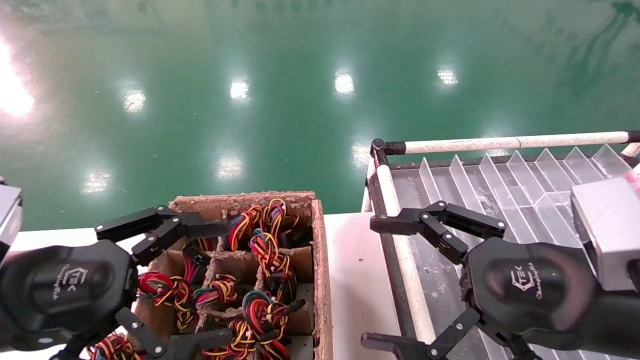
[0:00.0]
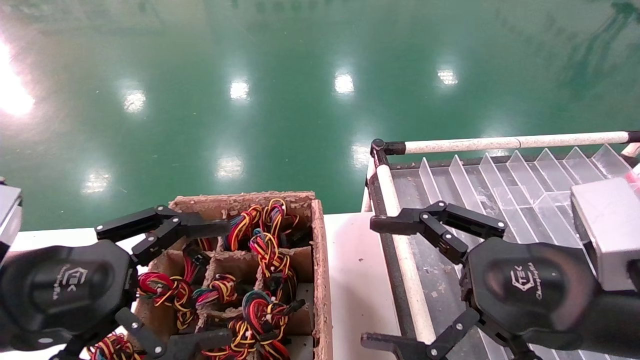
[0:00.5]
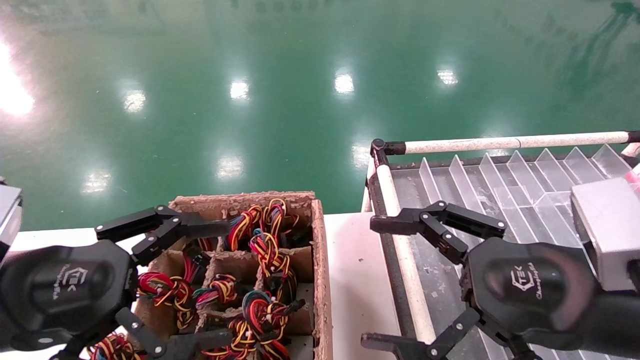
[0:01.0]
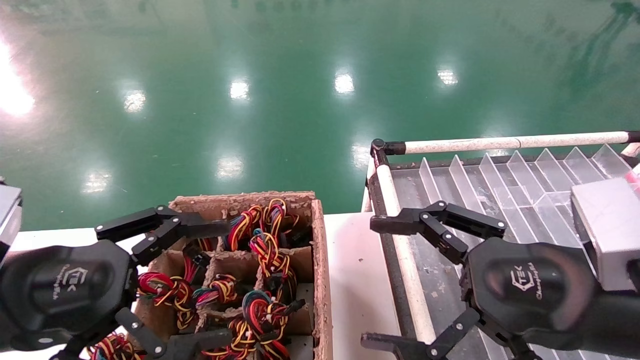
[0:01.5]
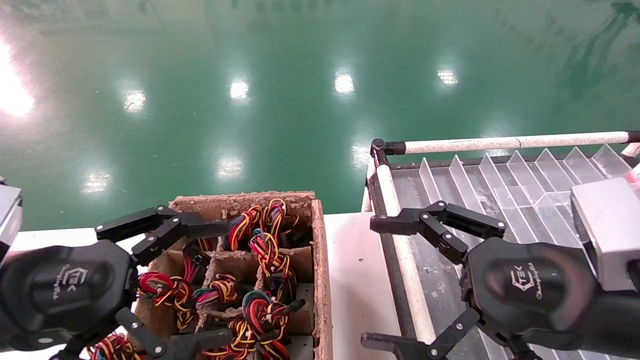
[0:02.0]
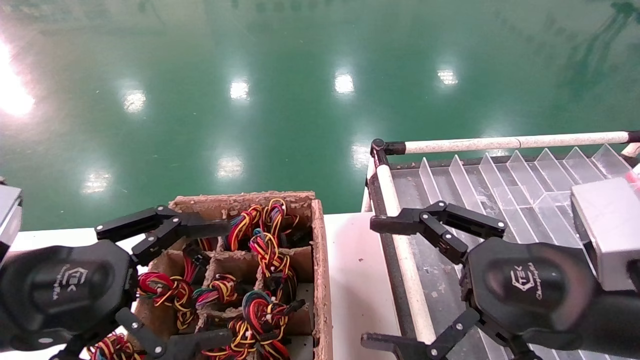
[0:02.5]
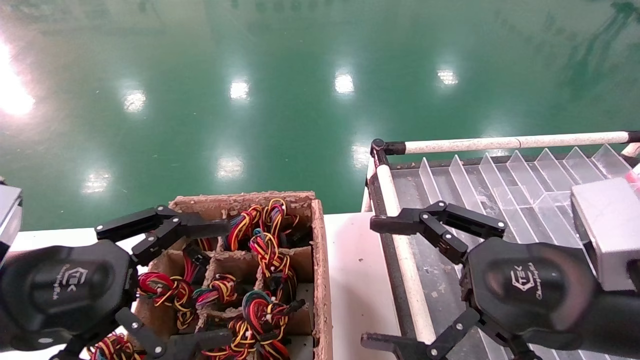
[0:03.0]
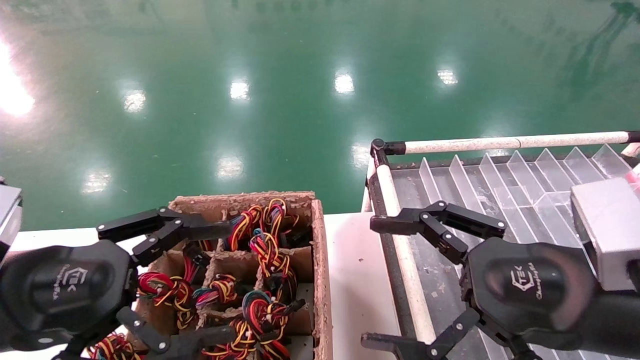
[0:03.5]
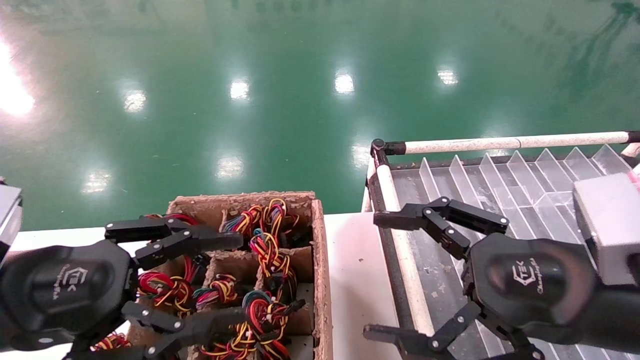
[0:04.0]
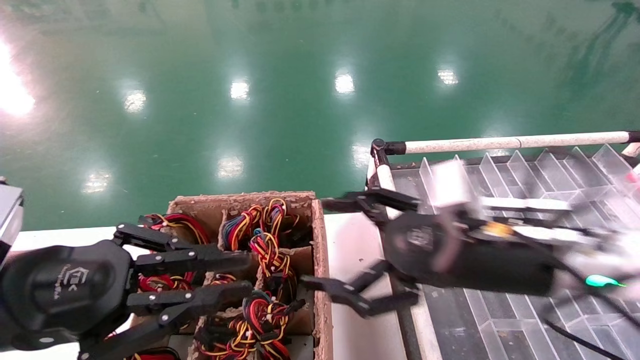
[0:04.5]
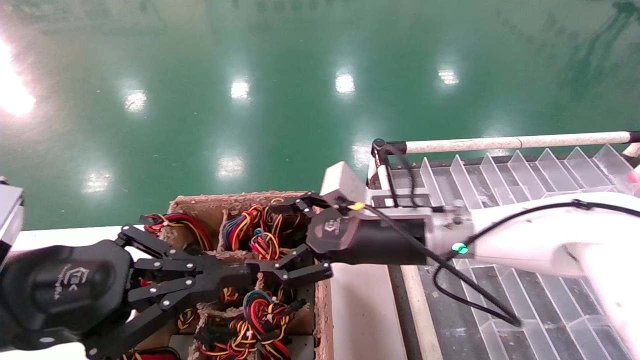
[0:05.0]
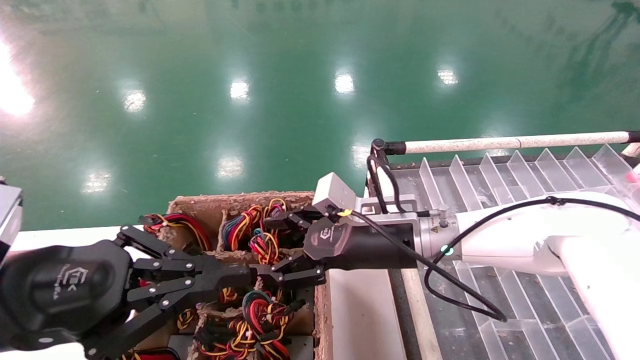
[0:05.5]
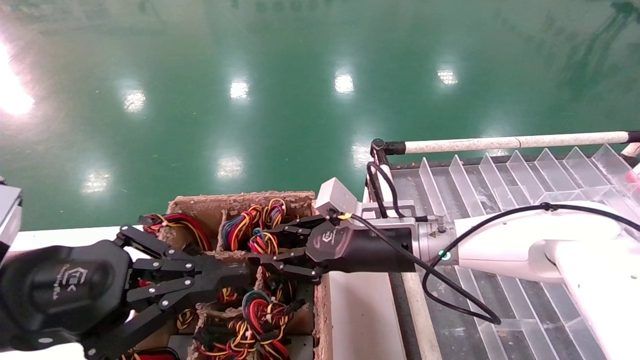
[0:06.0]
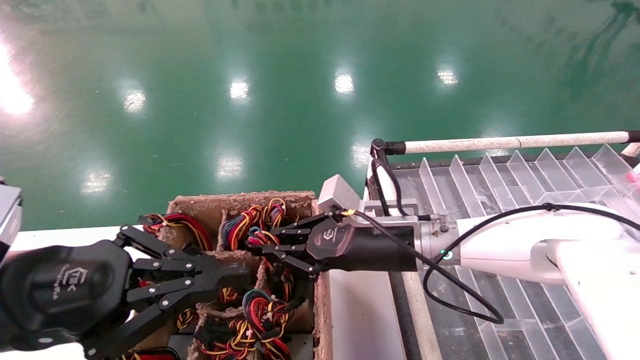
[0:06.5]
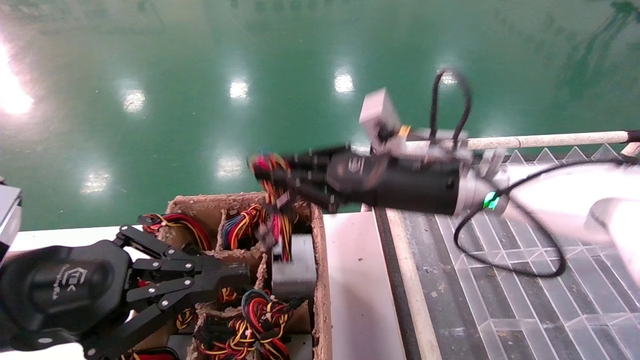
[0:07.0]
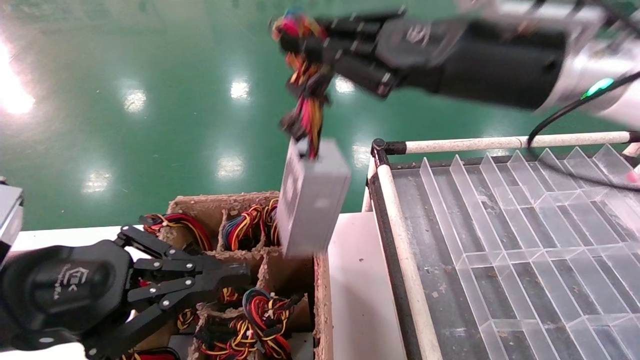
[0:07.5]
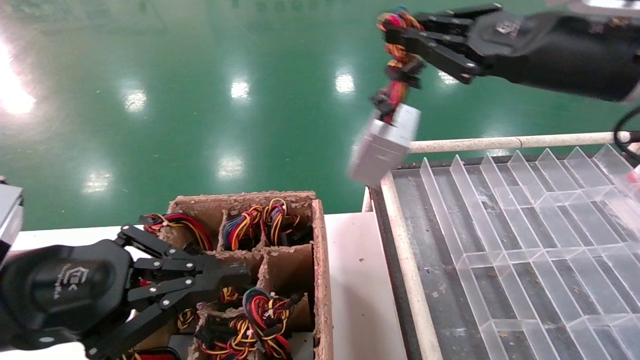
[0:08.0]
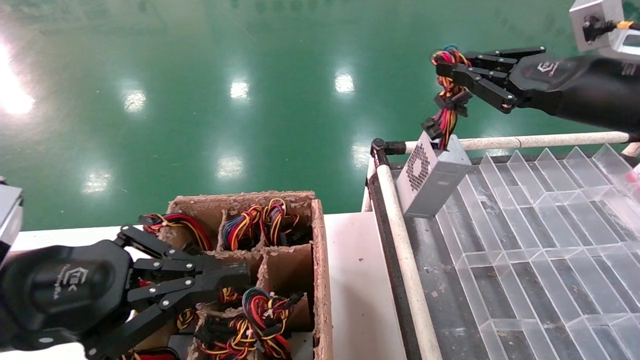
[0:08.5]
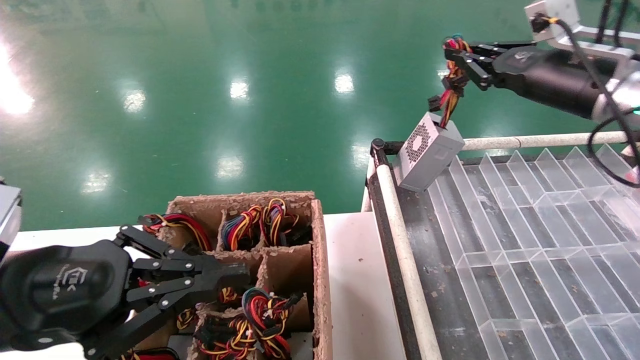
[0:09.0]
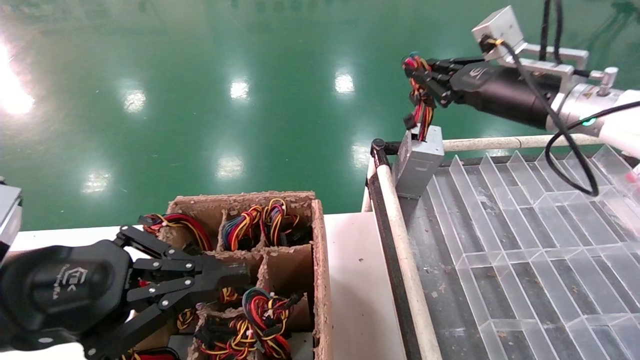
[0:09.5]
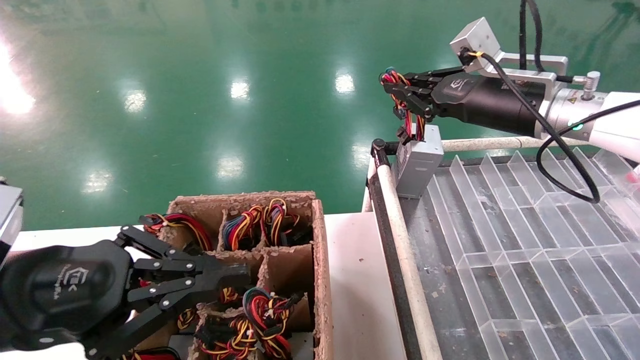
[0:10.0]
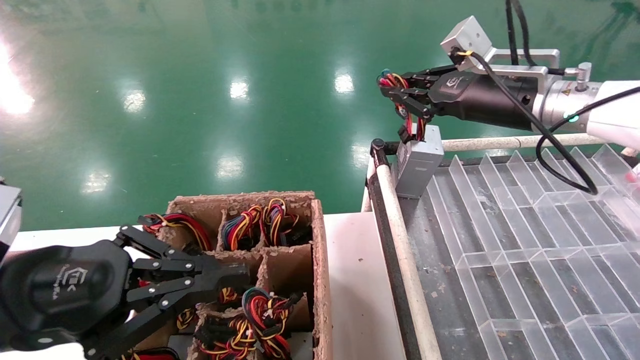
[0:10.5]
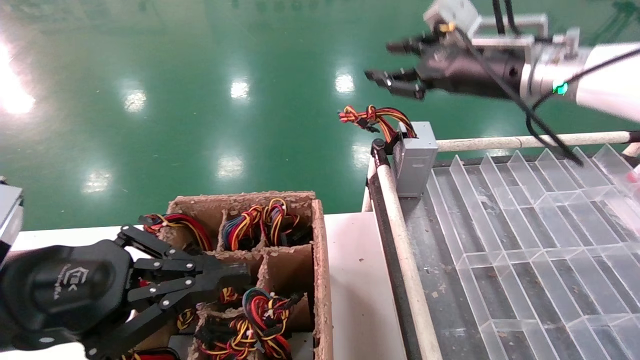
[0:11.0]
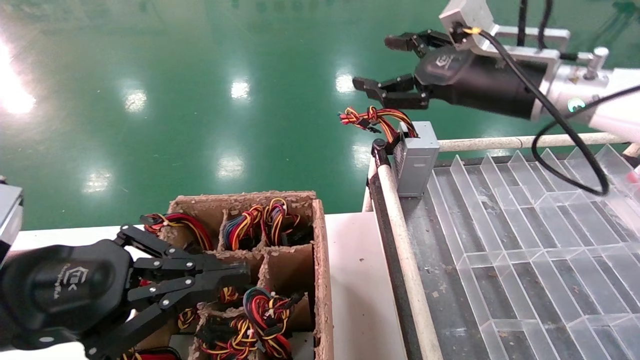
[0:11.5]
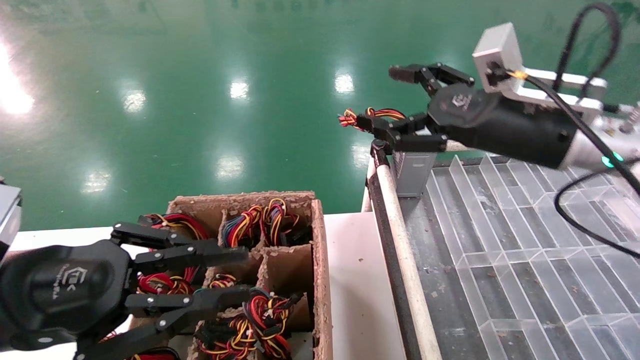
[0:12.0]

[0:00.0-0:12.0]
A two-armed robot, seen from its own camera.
Step, 0:04.5 to 0:06.5: Grab the main unit power supply from the containment box.
Step, 0:07.0 to 0:10.5: Place the main unit power supply in the designated area.
0:00.0 to 0:04.0: Neither gripper changes place.
0:04.0 to 0:06.0: The left gripper closes. The right gripper is displaced forward and to the left by about 25 cm, and closes up.
0:06.0 to 0:08.0: The right gripper is displaced upward and to the right by about 30 cm, and closes.
0:08.0 to 0:10.0: The right gripper goes some 10 cm forward.
0:10.0 to 0:12.0: The right gripper travels backward by about 5 cm, and opens.

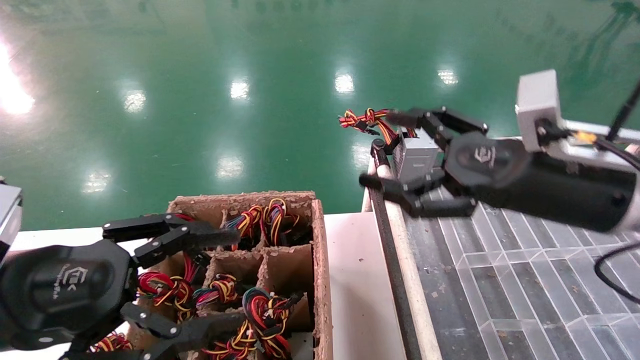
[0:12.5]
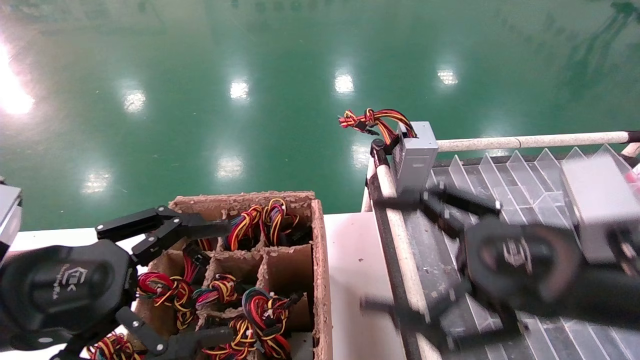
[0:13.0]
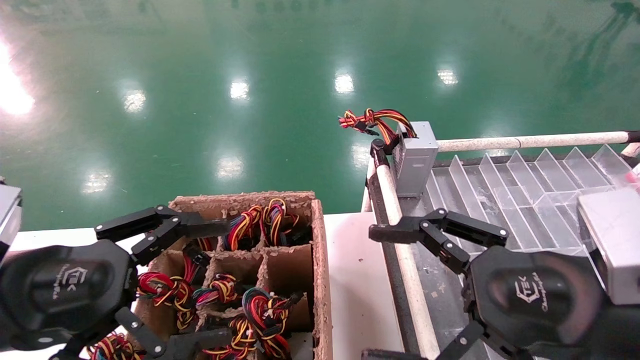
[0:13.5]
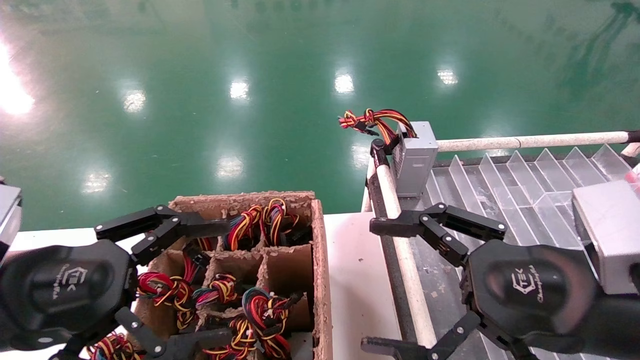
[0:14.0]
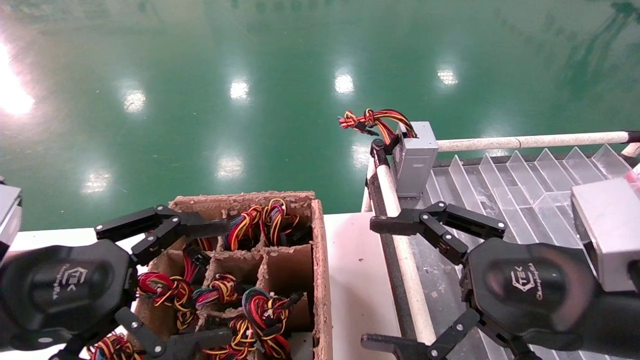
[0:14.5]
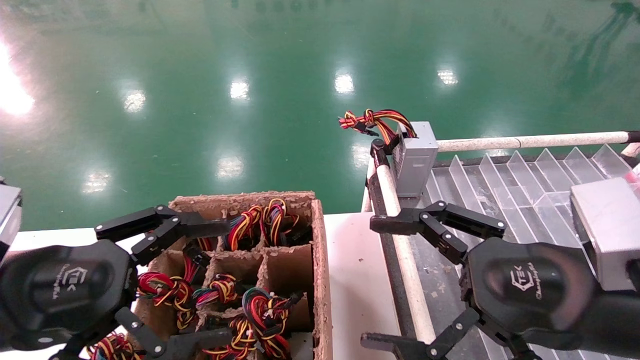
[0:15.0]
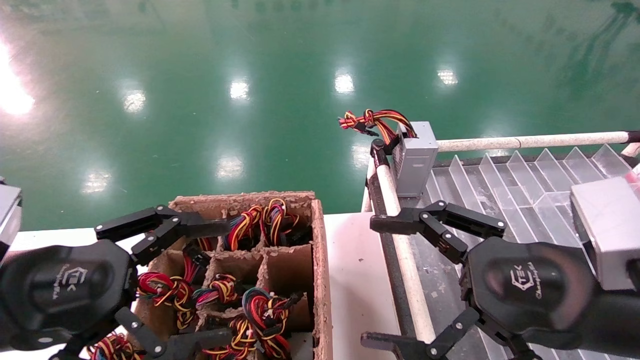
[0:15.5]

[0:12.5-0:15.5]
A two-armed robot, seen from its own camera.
0:12.5 to 0:14.0: The right gripper travels backward by about 10 cm. Meanwhile the left gripper opens up.
0:14.0 to 0:15.5: Both grippers stay about where they are.
